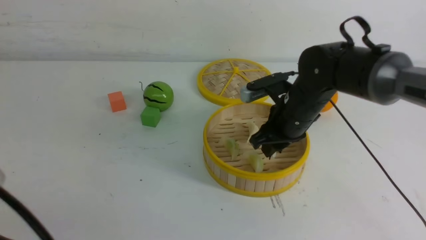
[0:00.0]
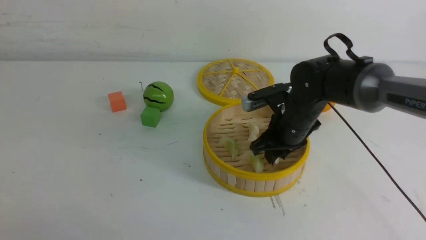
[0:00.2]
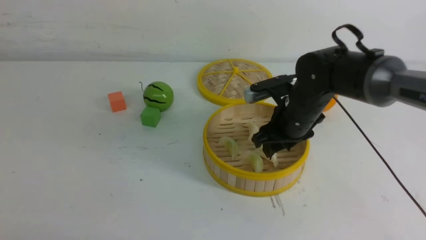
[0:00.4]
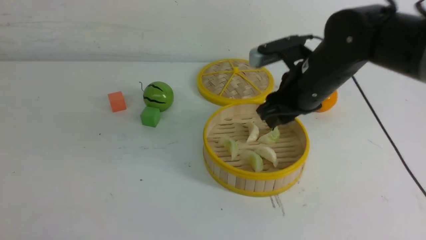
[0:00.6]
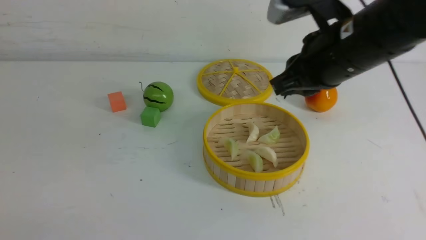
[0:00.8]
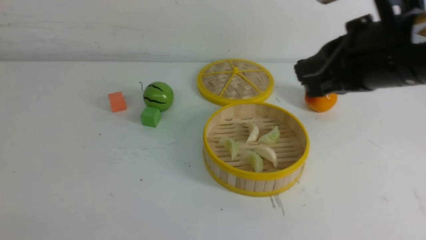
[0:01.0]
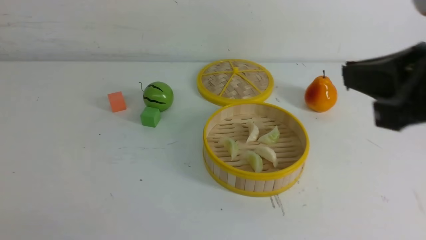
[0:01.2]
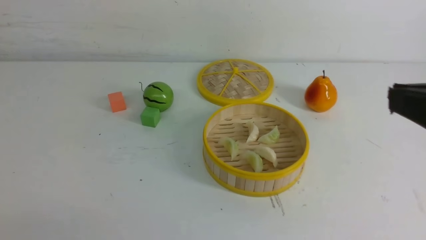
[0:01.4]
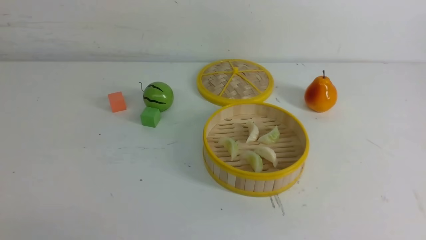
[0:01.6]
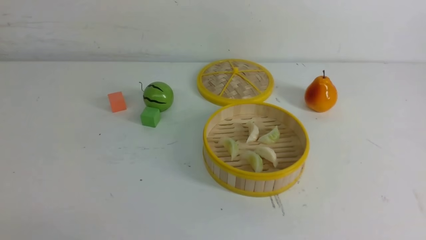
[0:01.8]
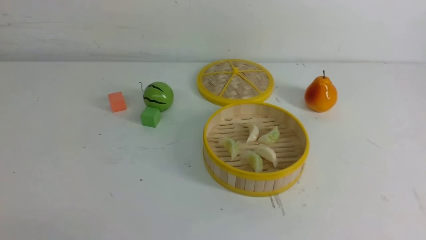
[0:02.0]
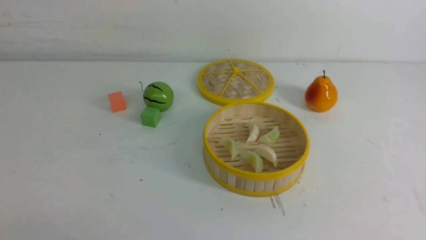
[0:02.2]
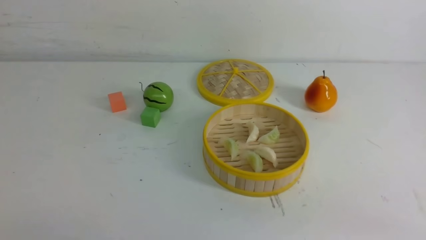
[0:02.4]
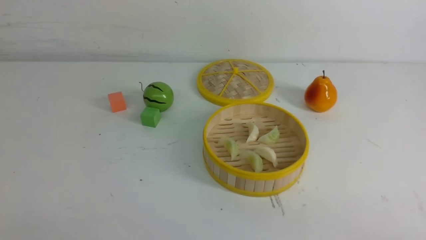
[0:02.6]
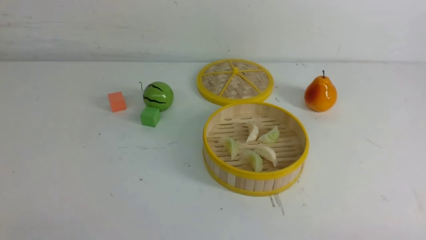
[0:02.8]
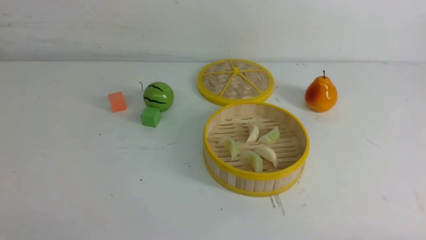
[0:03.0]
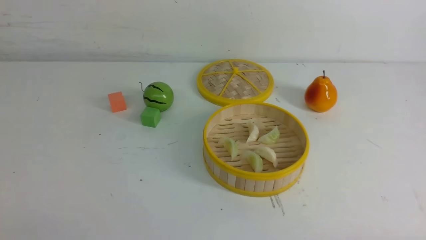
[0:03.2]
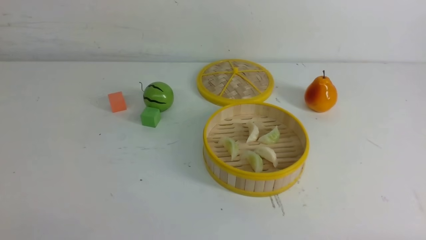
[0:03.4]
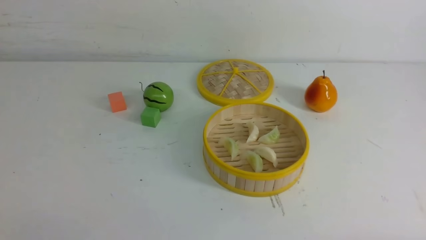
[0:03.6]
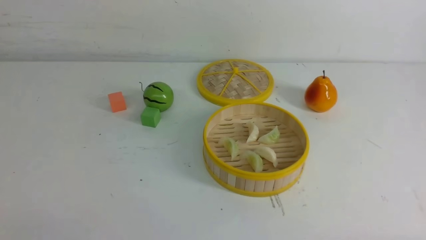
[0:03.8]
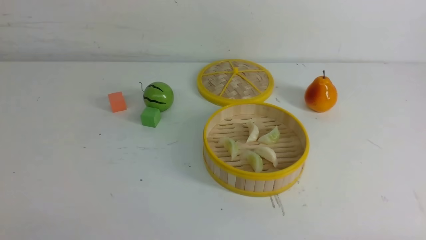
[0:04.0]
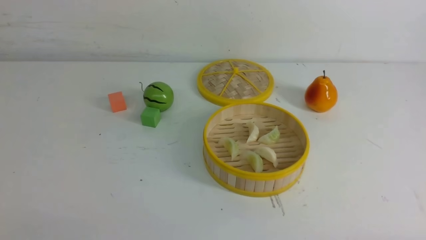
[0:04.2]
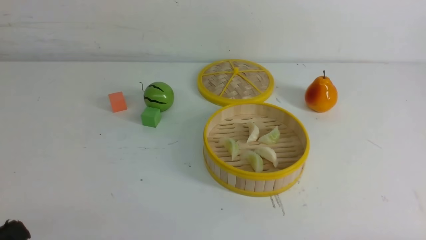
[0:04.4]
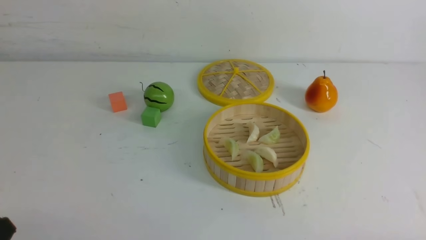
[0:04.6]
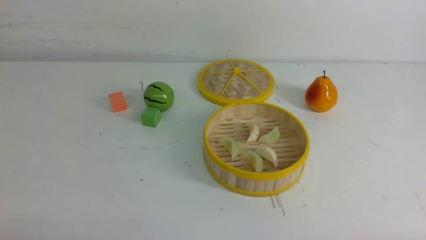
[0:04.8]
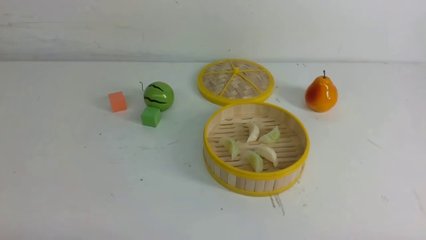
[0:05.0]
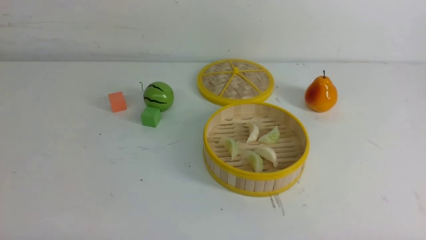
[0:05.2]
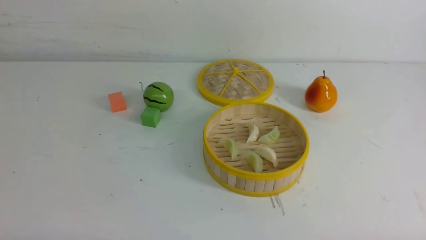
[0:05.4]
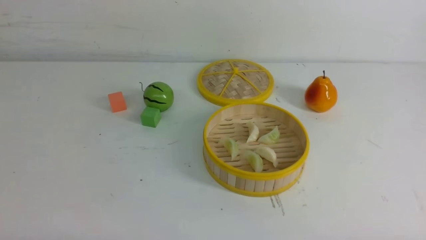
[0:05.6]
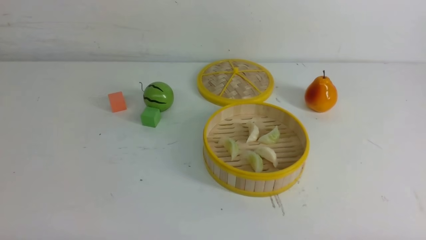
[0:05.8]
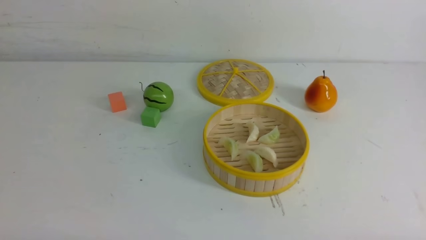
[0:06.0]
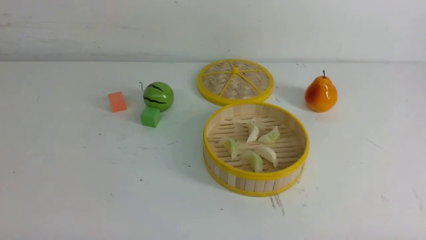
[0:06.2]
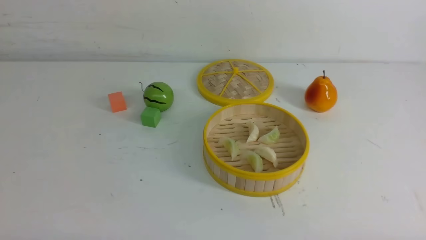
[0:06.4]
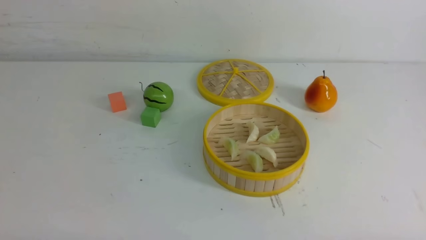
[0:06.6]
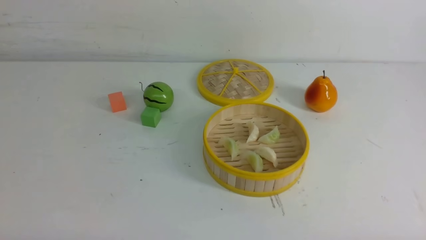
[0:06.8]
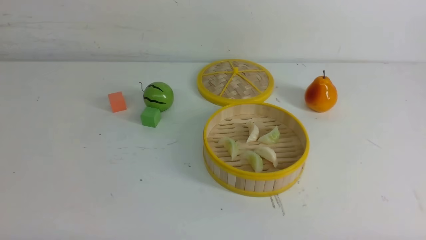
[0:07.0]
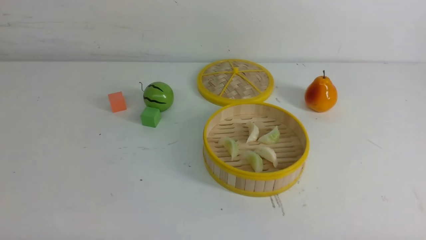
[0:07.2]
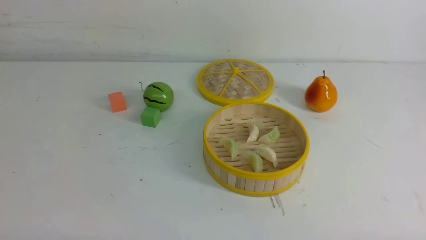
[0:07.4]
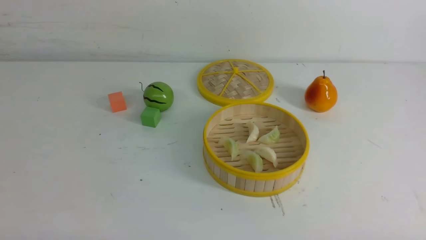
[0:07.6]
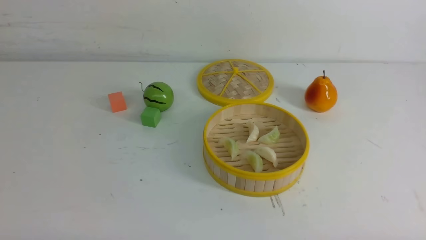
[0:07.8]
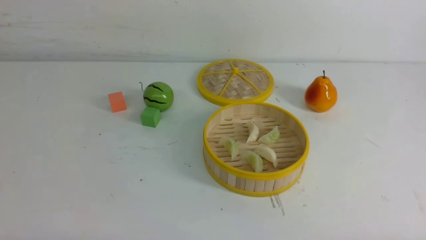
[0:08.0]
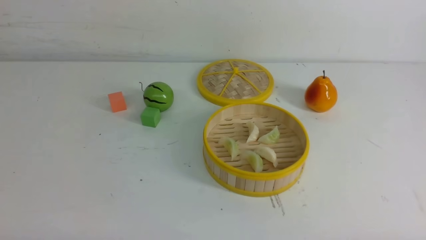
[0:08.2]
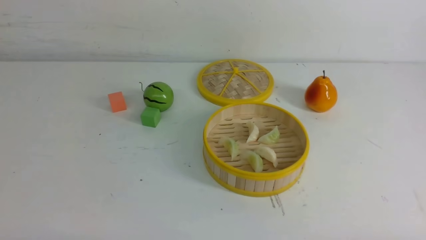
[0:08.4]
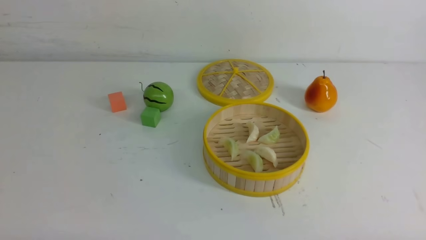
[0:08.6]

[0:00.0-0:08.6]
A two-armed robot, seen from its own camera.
Task of the whole recording: put the dumplings into the steamer on the white table.
0:00.0 to 0:01.4: The right gripper shifts roughly 30 cm backward and upward, and closes up; the left gripper heads to the left, downward and backward, covering approximately 10 cm.
0:01.4 to 0:02.8: The right gripper travels downward, to the right and backward by about 25 cm.
0:05.8 to 0:08.6: Both grippers stay about where they are.

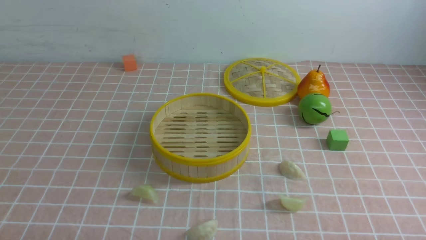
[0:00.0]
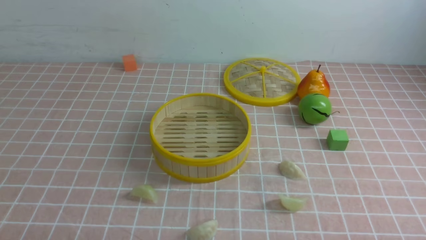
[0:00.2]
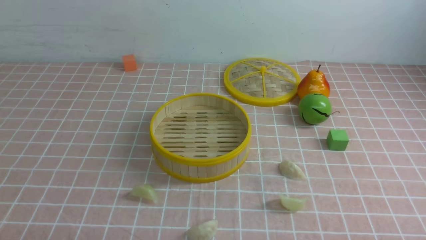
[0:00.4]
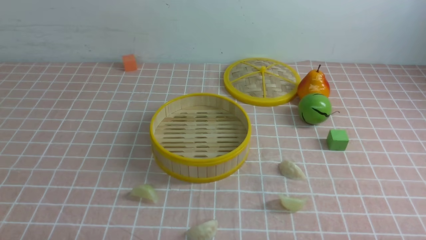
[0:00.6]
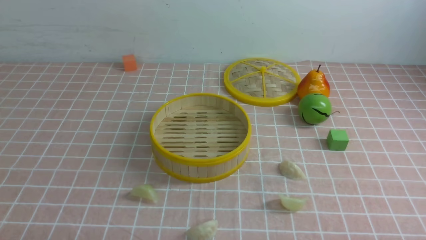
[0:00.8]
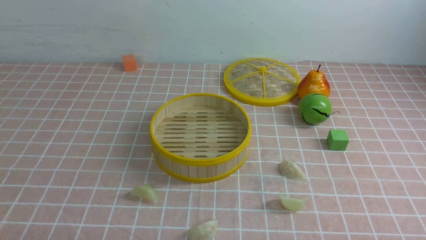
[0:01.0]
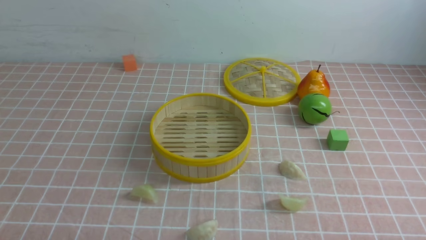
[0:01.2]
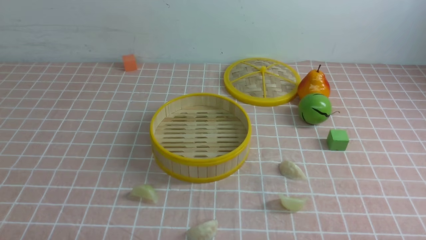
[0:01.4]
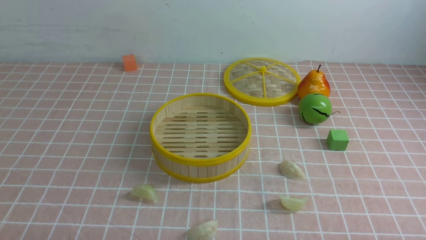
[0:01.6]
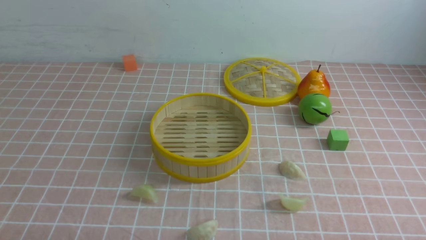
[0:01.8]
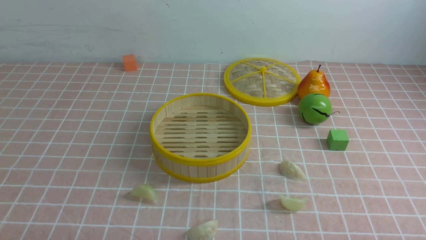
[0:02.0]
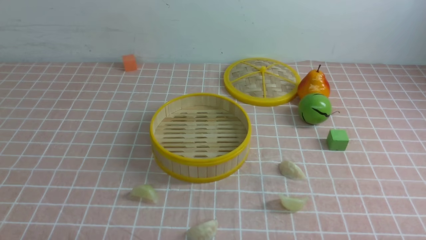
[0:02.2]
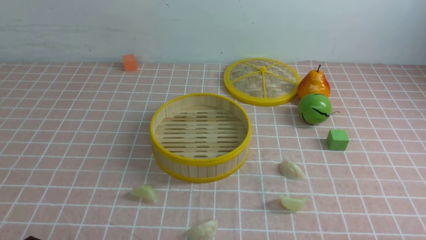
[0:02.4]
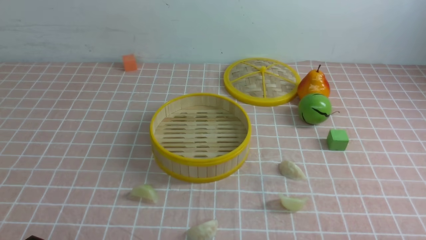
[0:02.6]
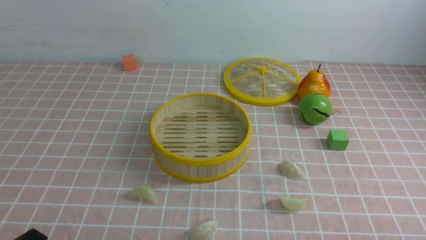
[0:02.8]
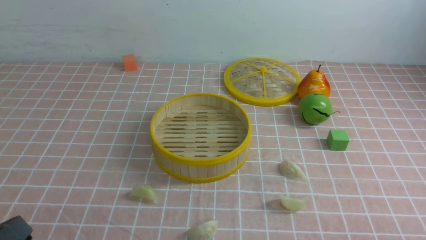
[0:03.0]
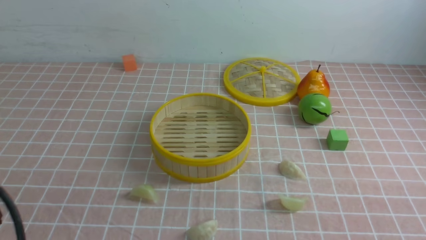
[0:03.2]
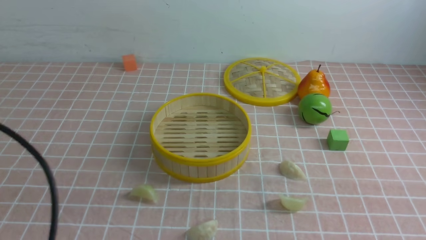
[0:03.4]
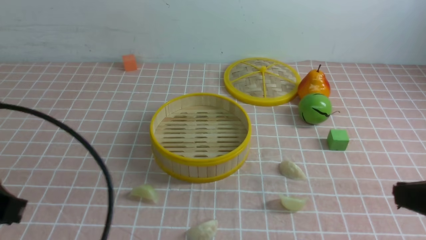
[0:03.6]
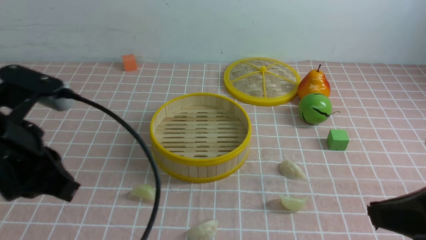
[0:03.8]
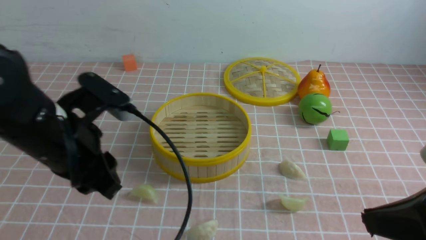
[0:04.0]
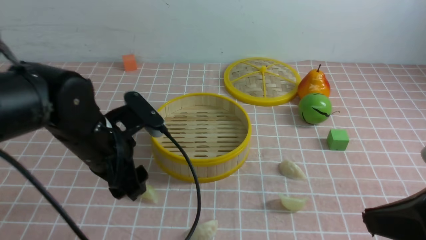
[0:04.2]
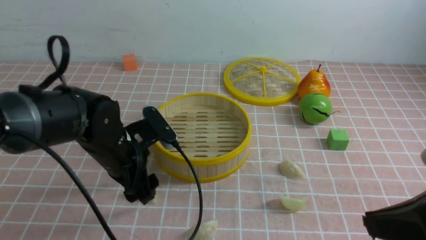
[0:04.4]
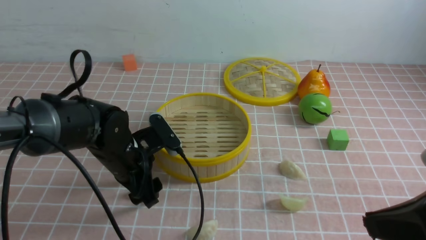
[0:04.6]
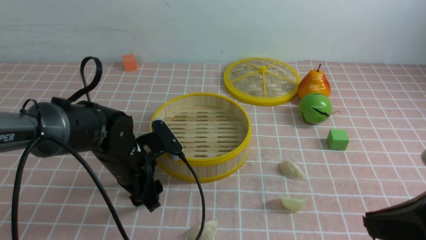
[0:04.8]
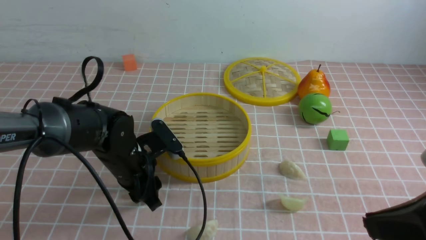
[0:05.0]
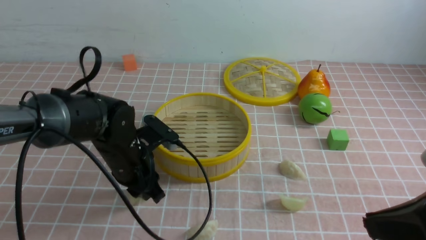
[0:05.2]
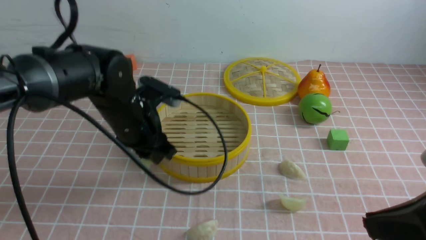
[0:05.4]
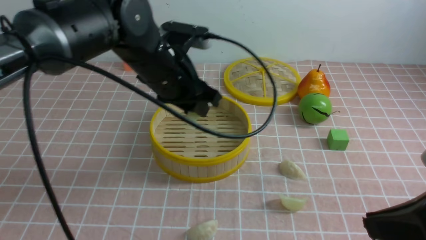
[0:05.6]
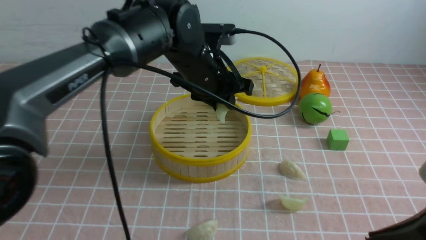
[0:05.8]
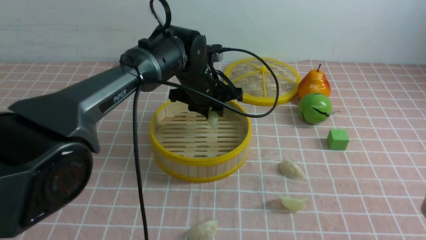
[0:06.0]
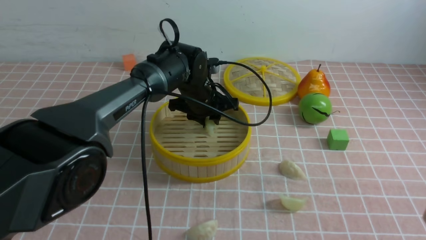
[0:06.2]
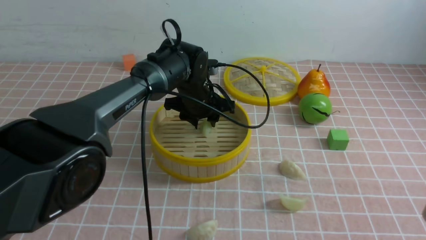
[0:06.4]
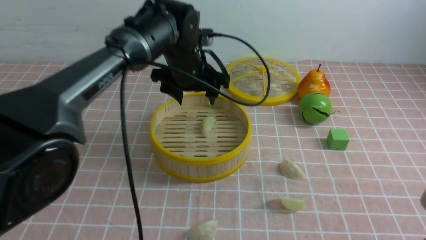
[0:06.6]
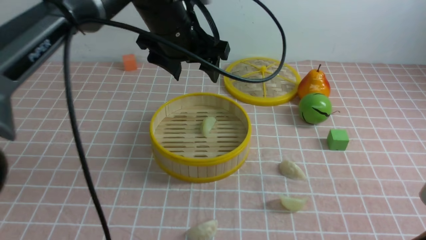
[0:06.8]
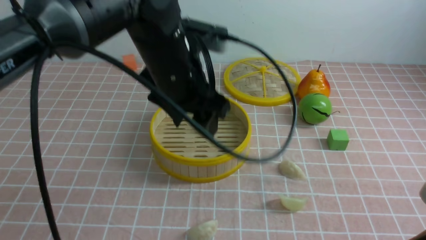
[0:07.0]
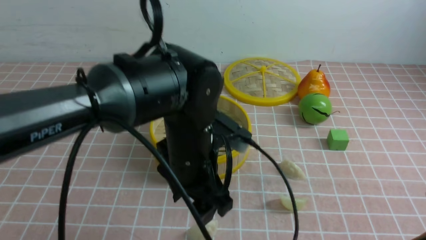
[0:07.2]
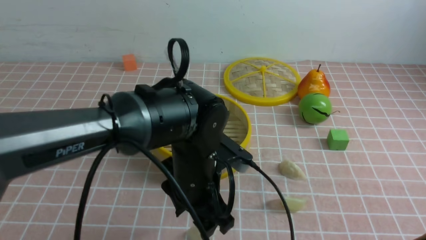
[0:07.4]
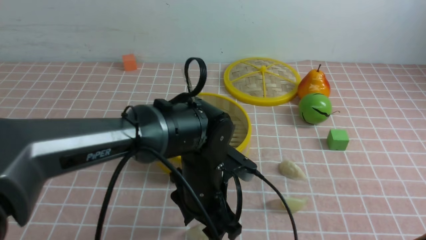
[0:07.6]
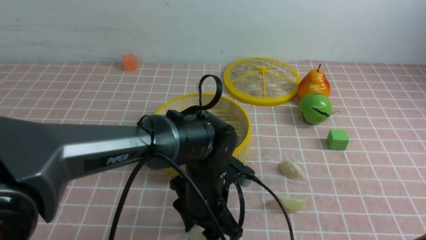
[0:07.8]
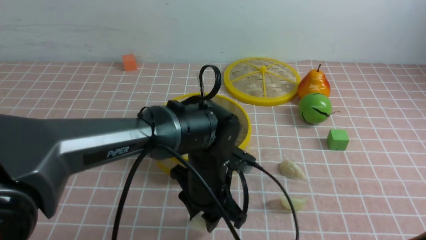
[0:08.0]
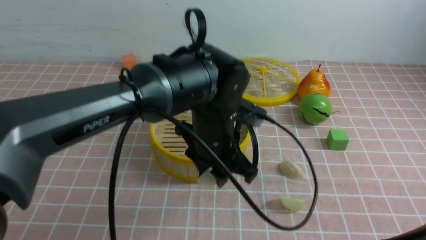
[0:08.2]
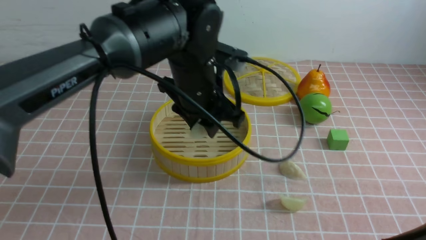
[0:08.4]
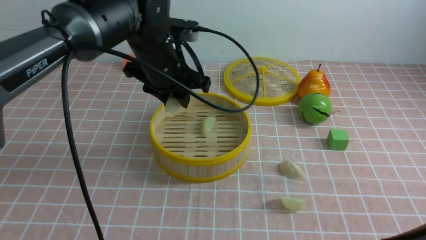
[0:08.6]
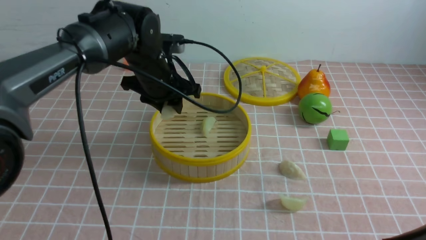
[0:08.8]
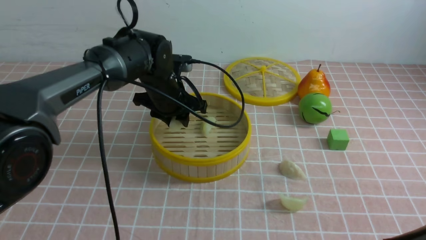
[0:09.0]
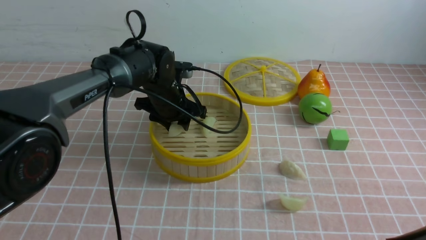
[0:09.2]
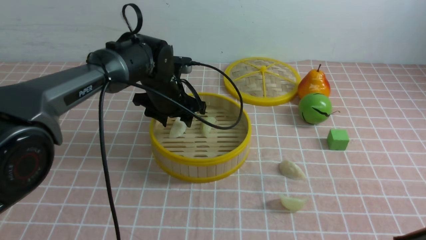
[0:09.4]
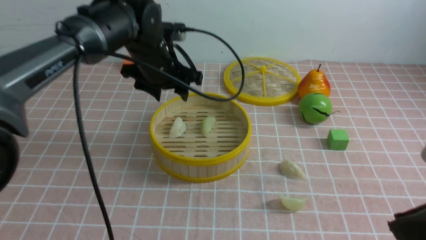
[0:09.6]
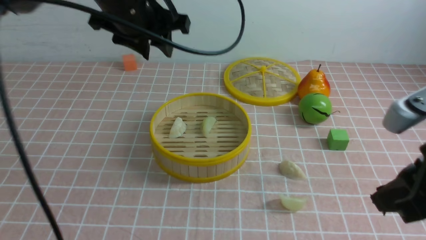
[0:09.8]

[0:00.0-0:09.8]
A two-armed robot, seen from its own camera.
Task of the whole recording: put the dumplings into the steamer on the table with the pink tablecloth.
Step, 0:00.0 to 0:05.2: use the left arm to grab a dumpling.
Step, 0:05.4 to 0:06.4: use the left arm to put the dumpling into the steamer.
Step, 0:06.6 to 0:07.8: use the left arm to grab a dumpling.
Step, 0:08.0 to 0:09.6: use the left arm to put the dumpling into the steamer.
0:02.8 to 0:04.2: The left gripper travels forward by roughly 20 cm, and closes and opens again, while the right gripper moves upward, forward and to the left, some 15 cm, and closes its fingers.
0:04.2 to 0:05.6: The left gripper is displaced forward and to the right by about 10 cm, and goes downward and returns, some 10 cm each way.
0:05.6 to 0:07.0: The left gripper is displaced upward by roughly 5 cm, and opens its fingers.
0:07.0 to 0:08.4: The left gripper moves about 15 cm downward and comes back, and closes up.
0:08.4 to 0:09.8: The right gripper shifts roughly 5 cm forward; the left gripper shifts roughly 15 cm to the left, upward and forward.
